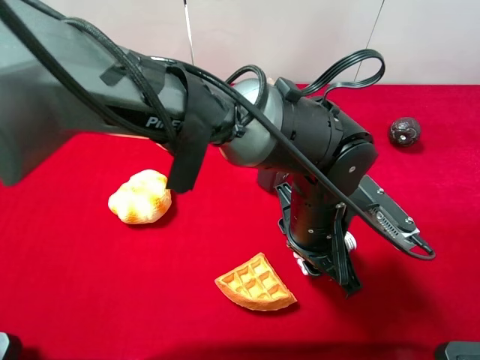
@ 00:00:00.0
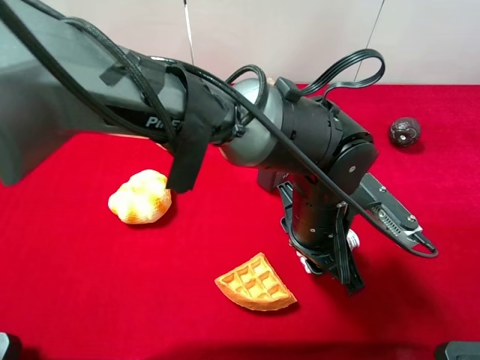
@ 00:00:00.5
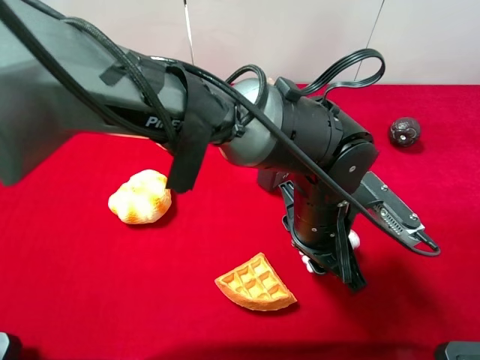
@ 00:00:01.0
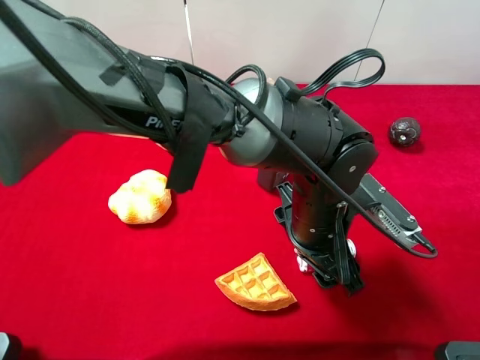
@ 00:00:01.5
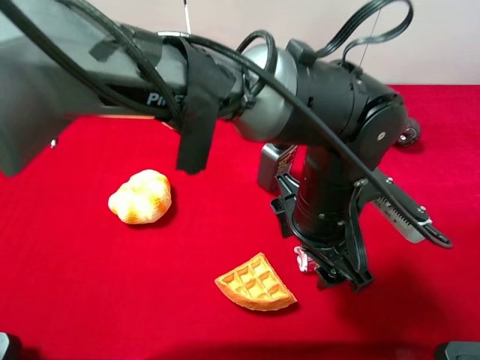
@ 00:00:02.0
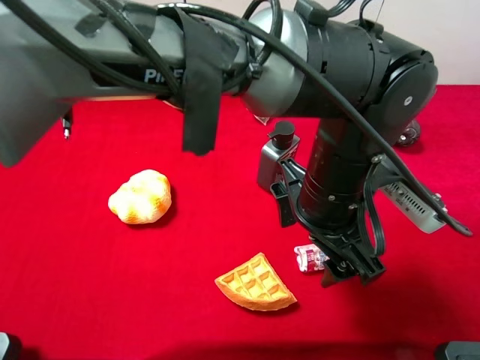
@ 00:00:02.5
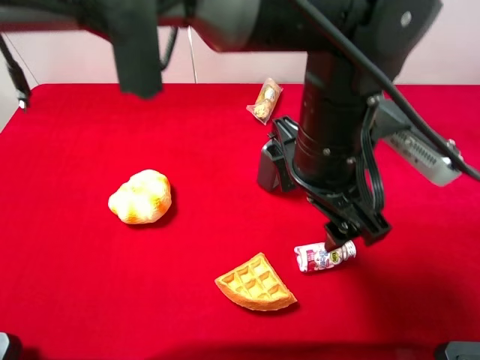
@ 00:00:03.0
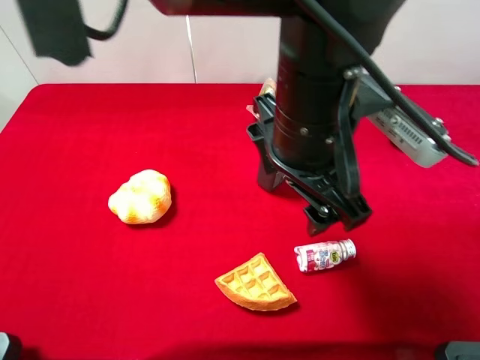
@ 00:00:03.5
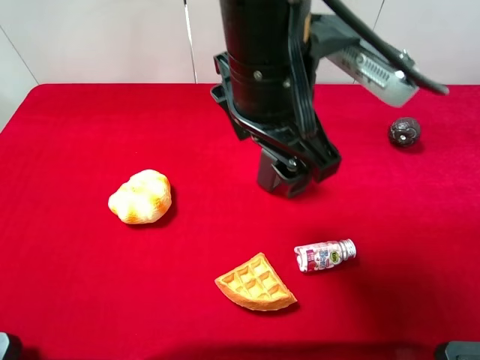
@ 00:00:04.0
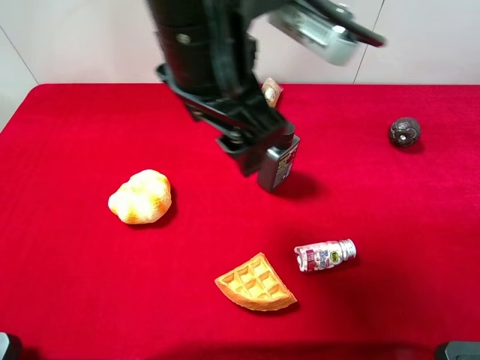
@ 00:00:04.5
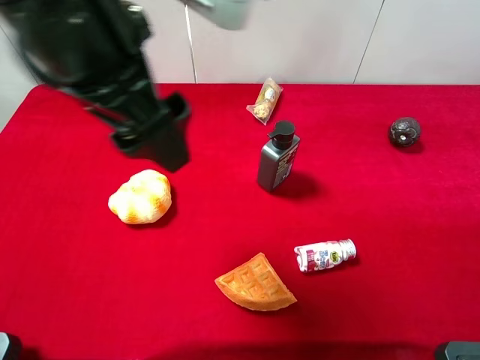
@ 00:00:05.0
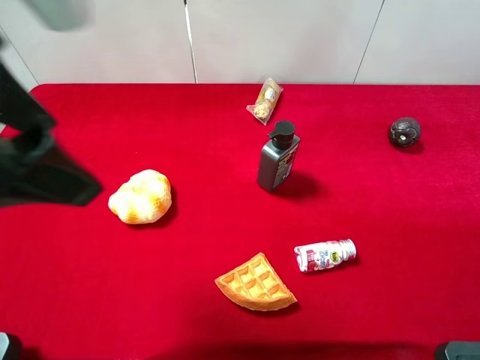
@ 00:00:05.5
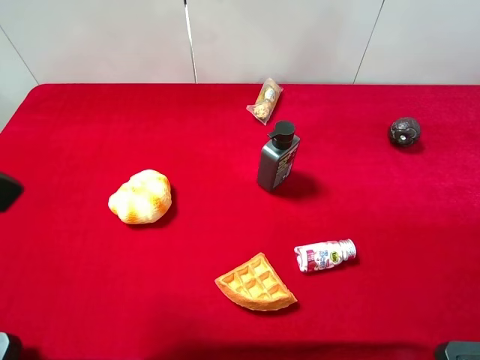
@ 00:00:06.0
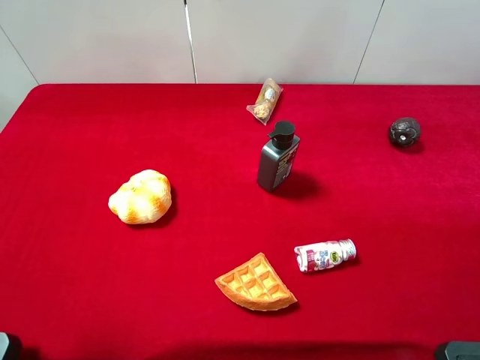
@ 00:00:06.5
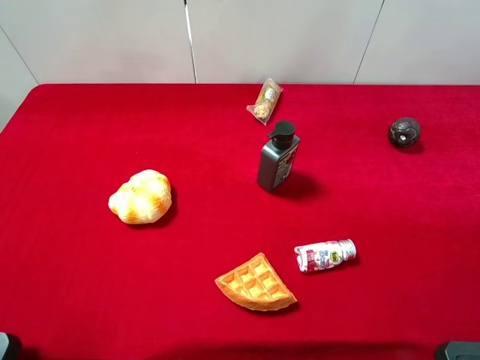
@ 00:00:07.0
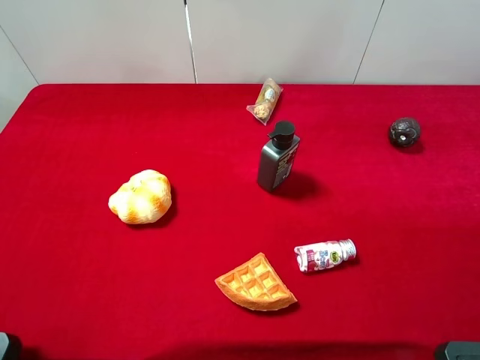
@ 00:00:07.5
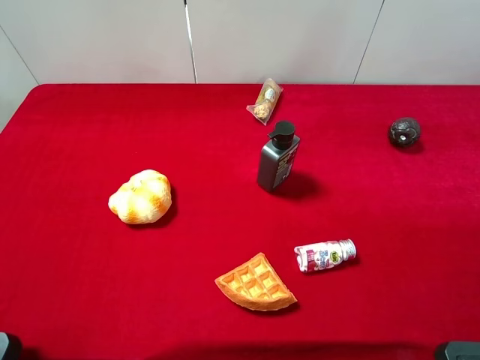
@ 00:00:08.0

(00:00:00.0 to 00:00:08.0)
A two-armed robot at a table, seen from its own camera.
Task of the whole recording: the gripper move the object.
Step, 00:00:00.0 - 00:00:02.5: Place the mint candy on the table with the left gripper.
00:00:00.0 - 00:00:02.0: The left gripper opens up.
00:00:02.0 - 00:00:04.0: The left gripper heads upward and to the left, covering some 15 cm.
00:00:04.0 - 00:00:06.0: The left gripper is displaced to the left and backward by some 25 cm.
00:00:06.0 - 00:00:08.0: The left gripper goes some 15 cm backward, downward and to the left.
